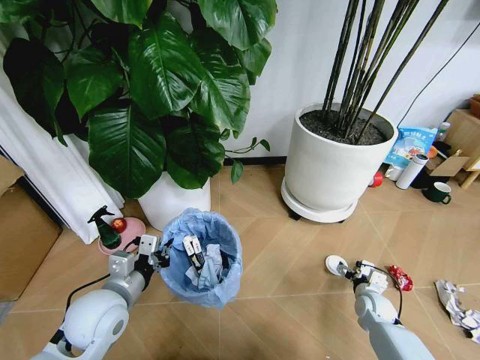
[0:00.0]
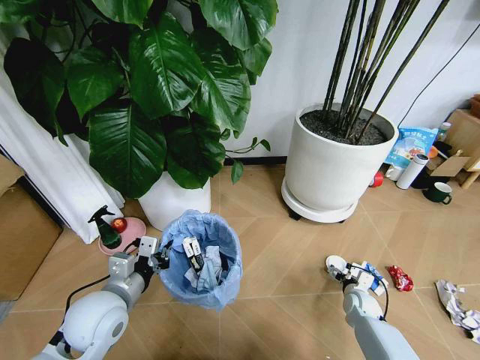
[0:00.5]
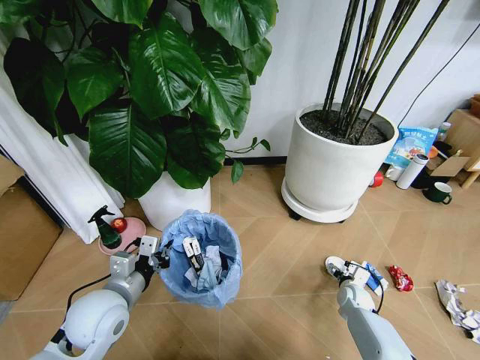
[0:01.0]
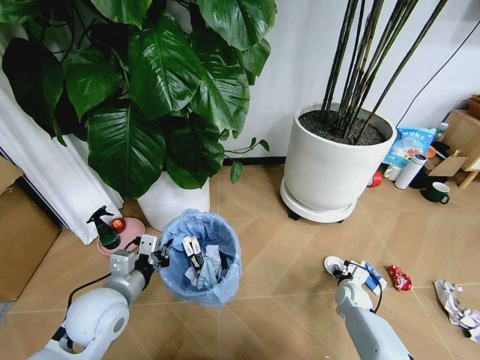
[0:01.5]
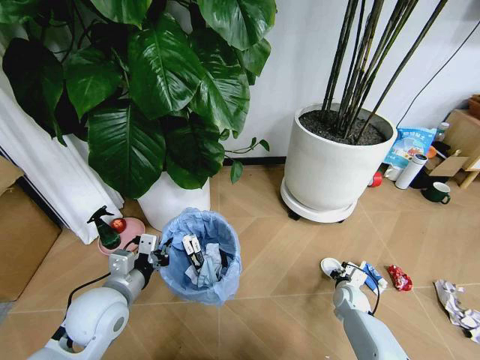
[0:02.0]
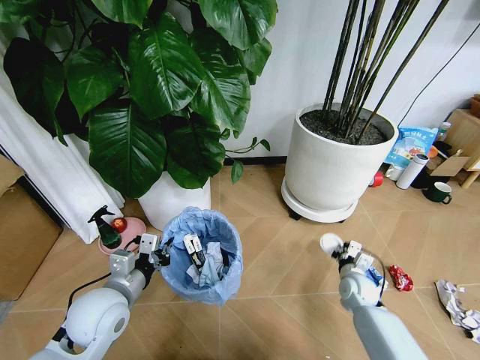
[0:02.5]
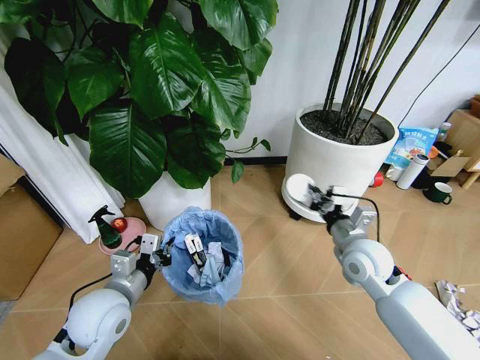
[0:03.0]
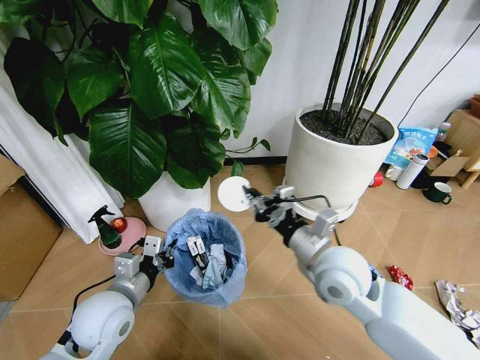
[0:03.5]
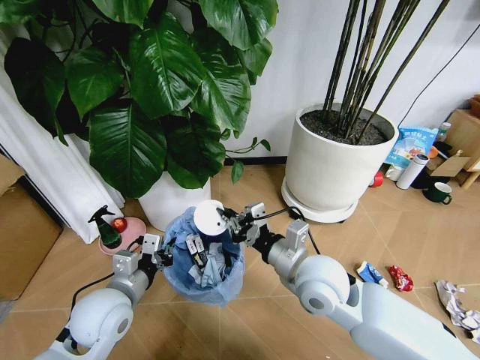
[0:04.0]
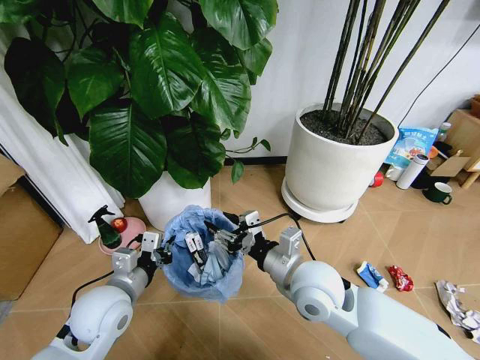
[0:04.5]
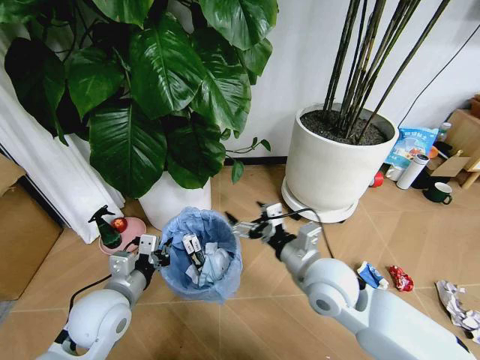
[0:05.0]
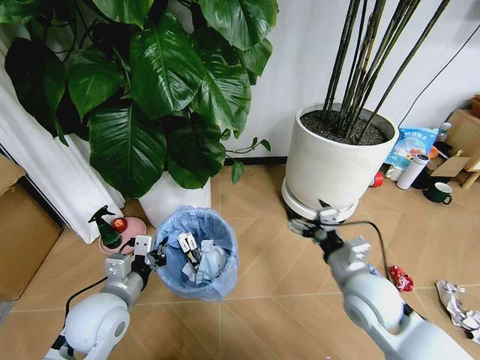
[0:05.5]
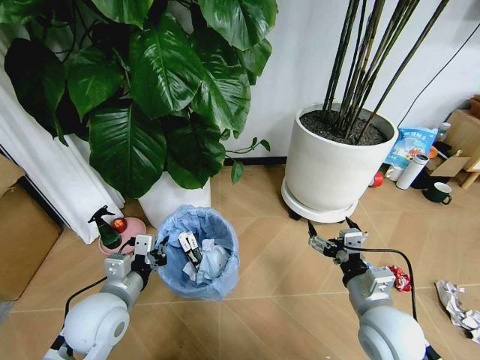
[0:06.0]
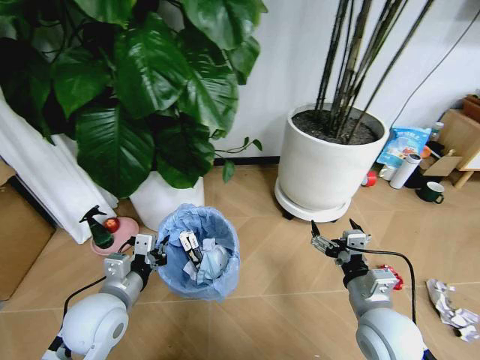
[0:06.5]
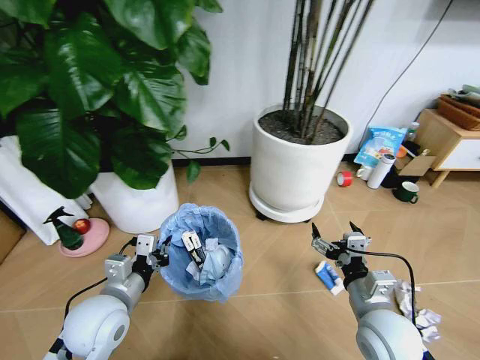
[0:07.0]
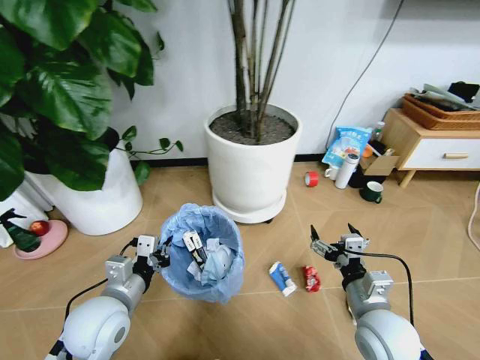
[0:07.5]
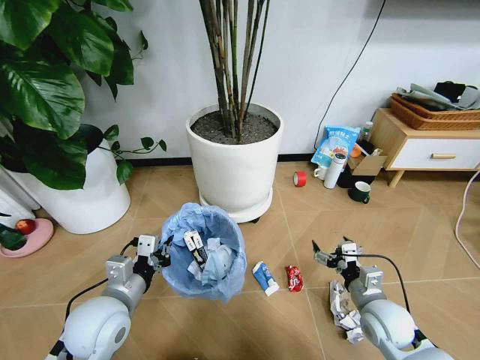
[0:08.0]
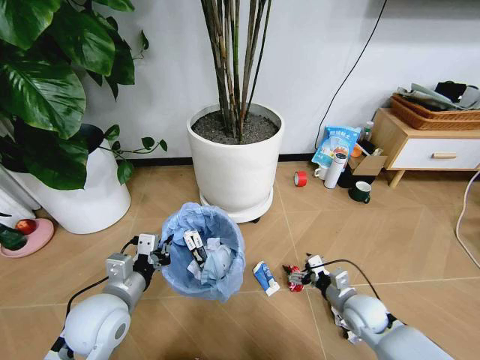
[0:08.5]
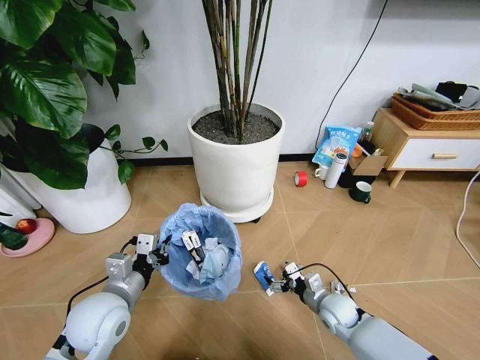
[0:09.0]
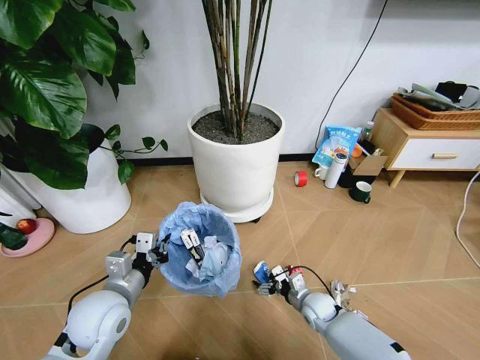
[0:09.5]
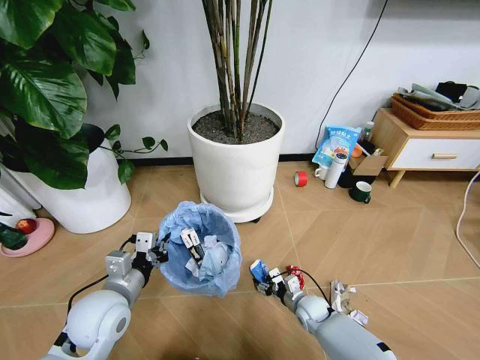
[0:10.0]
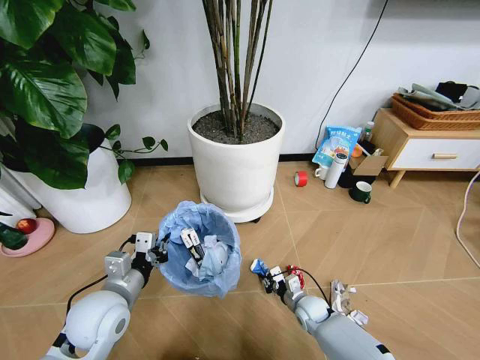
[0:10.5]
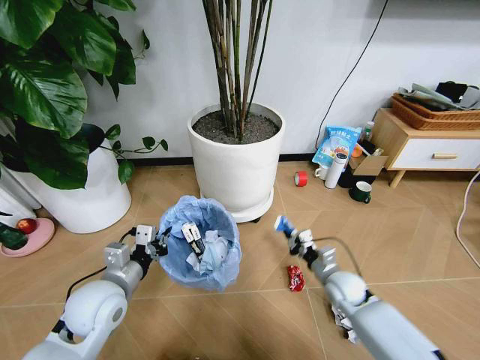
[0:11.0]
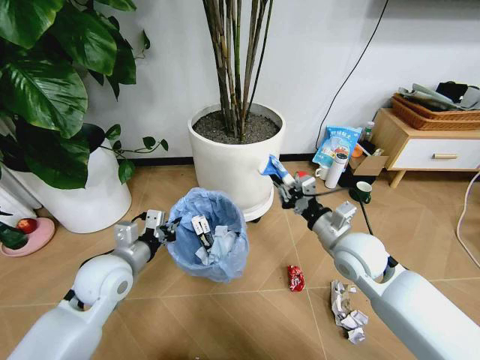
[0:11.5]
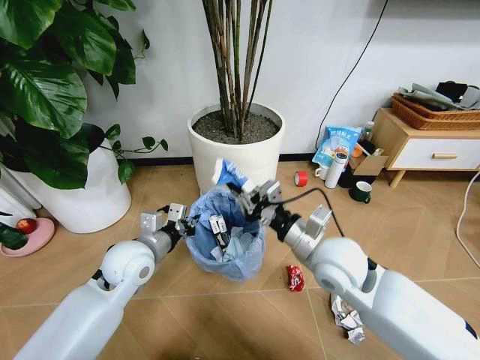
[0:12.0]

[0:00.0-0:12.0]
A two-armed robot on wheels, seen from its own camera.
Task of the whole recording: Pick up the trash bin and place the garbage on the floor into it.
0:00.0 to 0:02.0: The right gripper changes place by approximately 5 cm, and closes its fingers.
0:02.0 to 0:04.0: The right gripper is displaced upward and to the left by approximately 40 cm.
0:04.0 to 0:06.0: The right gripper moves to the right, backward and downward, some 15 cm, and opens up.
0:06.0 to 0:08.0: The right gripper shifts about 10 cm downward and to the right.
0:08.0 to 0:10.0: The right gripper is displaced downward, to the left and forward by roughly 20 cm.
0:10.0 to 0:12.0: The right gripper goes approximately 35 cm upward, and closes its fingers, while the left gripper shifts roughly 10 cm forward.

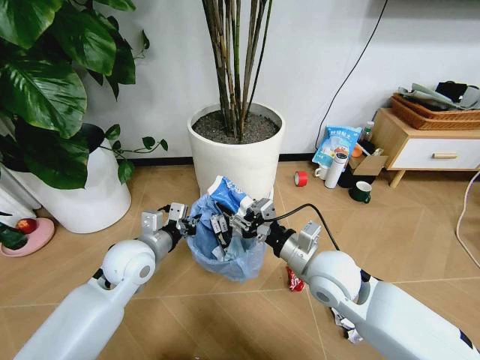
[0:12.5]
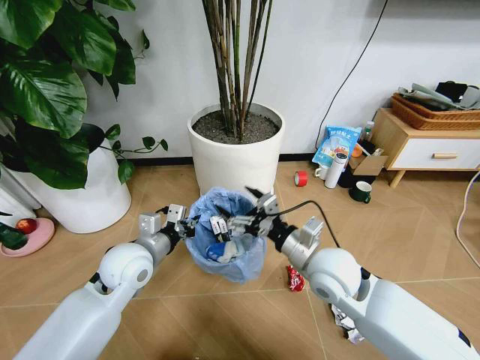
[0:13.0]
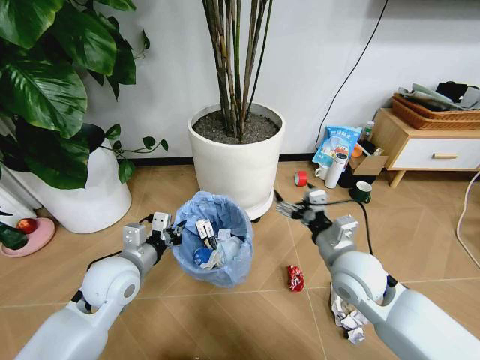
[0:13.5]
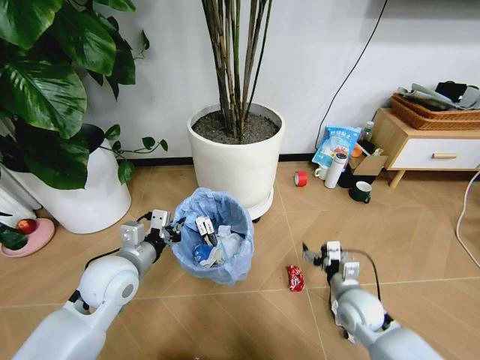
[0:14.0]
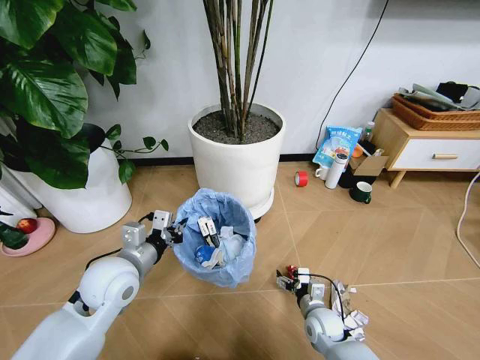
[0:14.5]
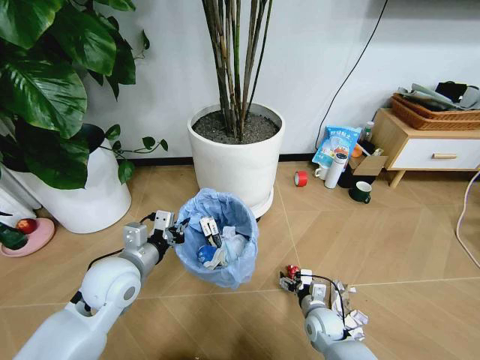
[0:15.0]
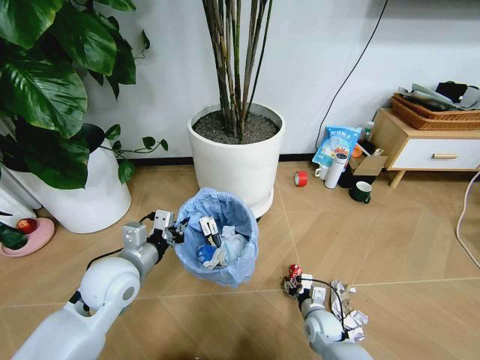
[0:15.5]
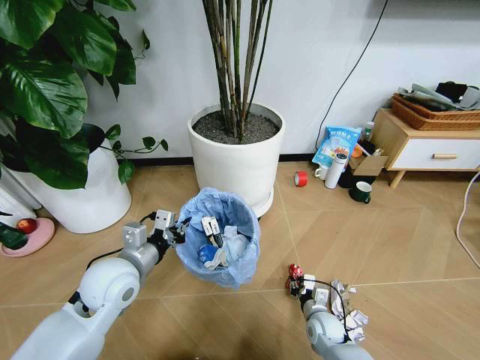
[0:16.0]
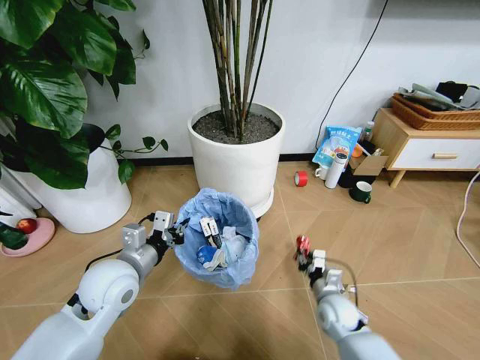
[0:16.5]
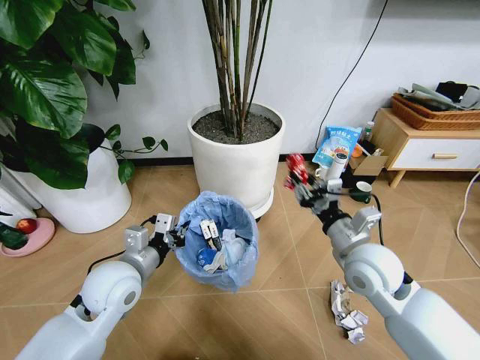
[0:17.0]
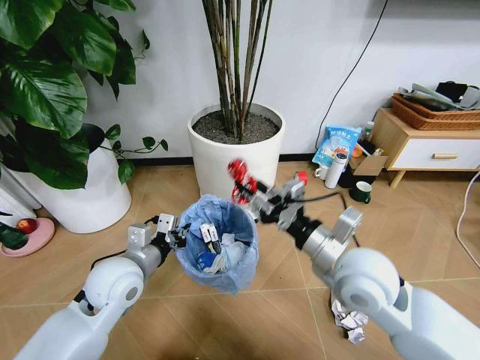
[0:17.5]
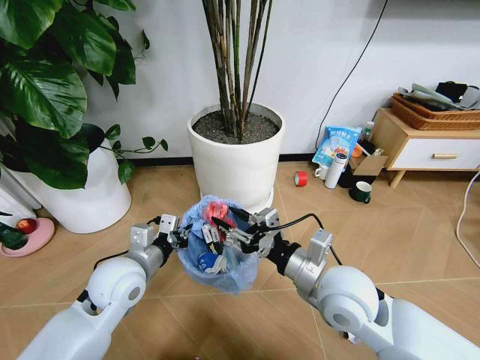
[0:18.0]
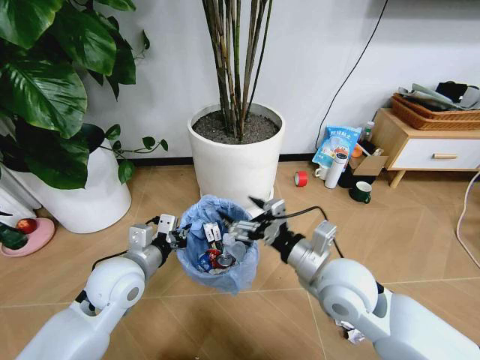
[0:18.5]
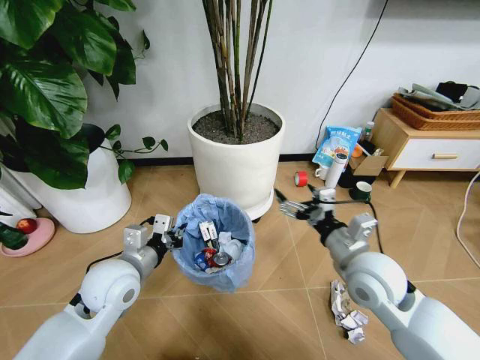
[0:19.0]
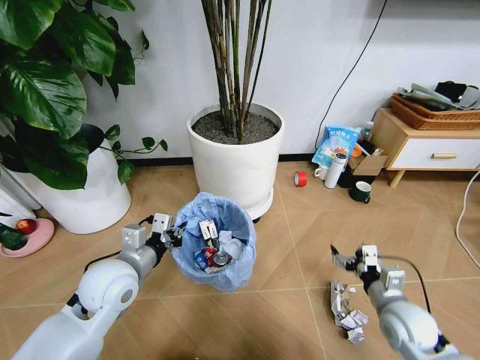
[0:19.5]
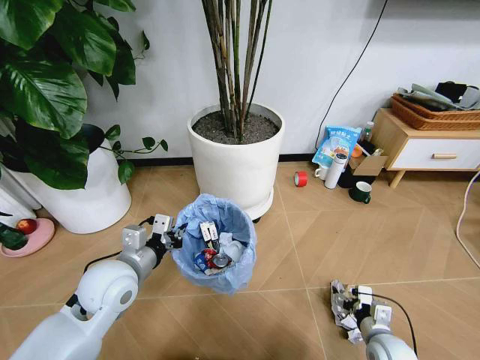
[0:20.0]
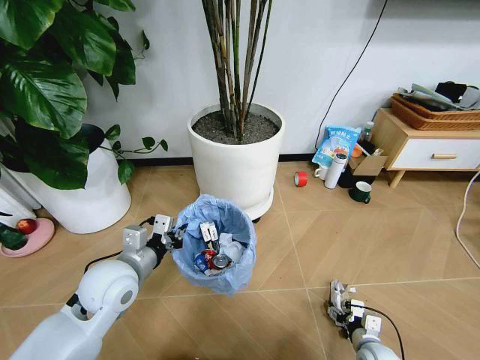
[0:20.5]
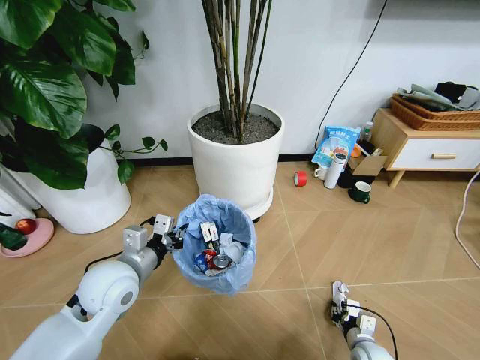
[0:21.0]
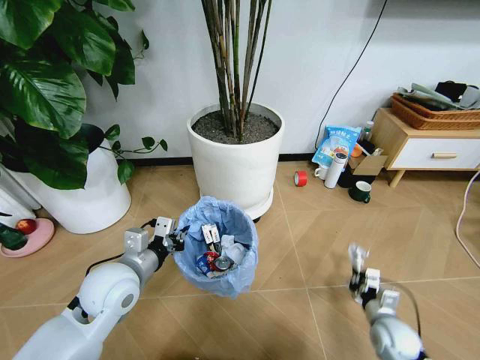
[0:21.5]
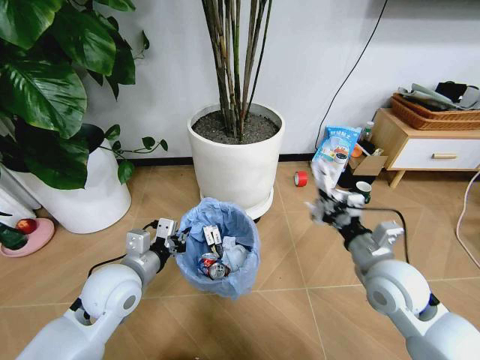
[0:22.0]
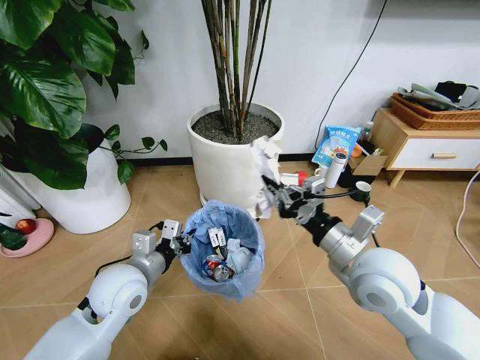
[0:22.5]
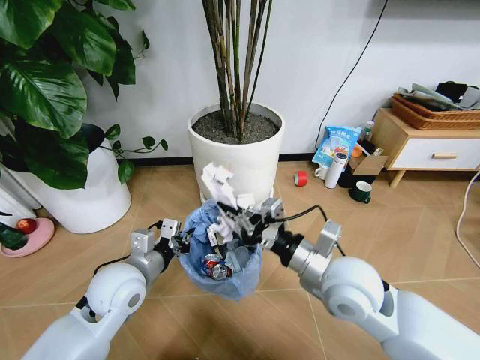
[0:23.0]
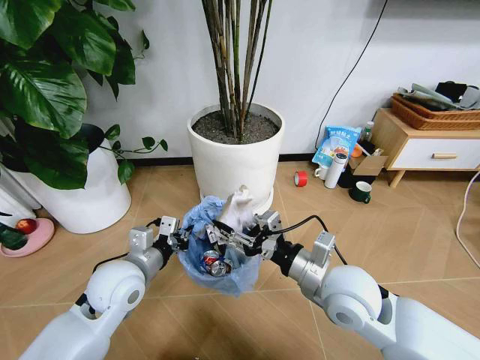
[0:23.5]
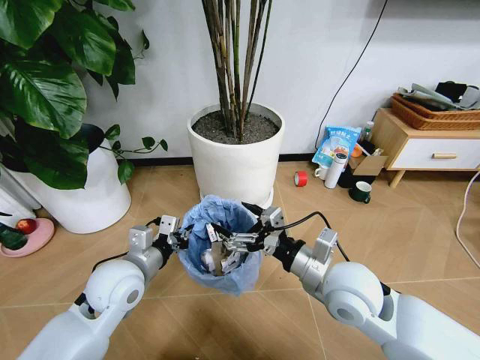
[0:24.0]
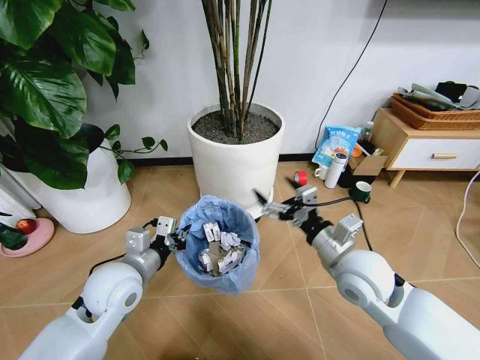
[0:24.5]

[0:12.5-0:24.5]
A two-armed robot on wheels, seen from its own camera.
Task of the whole recording: Pick up the trash bin and place the garbage on the floor into it.
0:12.5 to 0:14.5: The right gripper shifts about 25 cm downward, and opens its fingers.
0:14.5 to 0:16.5: The right gripper closes.
0:16.5 to 0:18.5: The right gripper is displaced upward by approximately 25 cm, and opens.
0:18.5 to 0:20.5: The right gripper shifts roughly 35 cm downward and to the right.
0:20.5 to 0:22.5: The right gripper moves upward, roughly 35 cm, and closes up.
0:22.5 to 0:24.5: The right gripper changes place by roughly 5 cm, and opens.

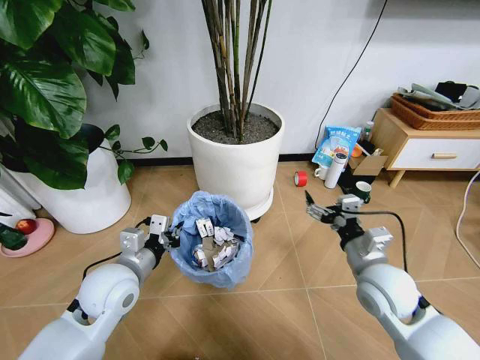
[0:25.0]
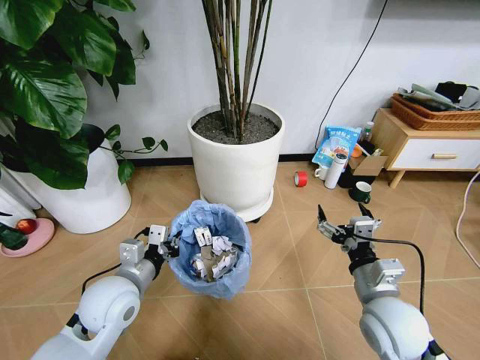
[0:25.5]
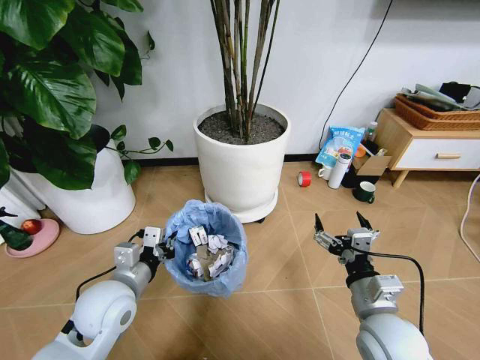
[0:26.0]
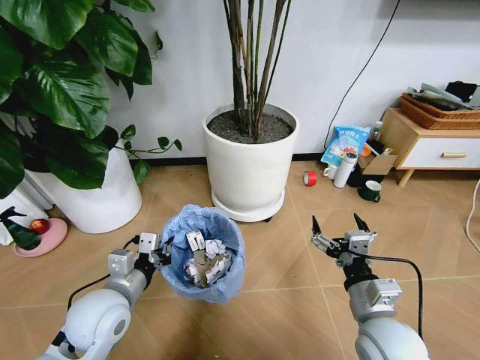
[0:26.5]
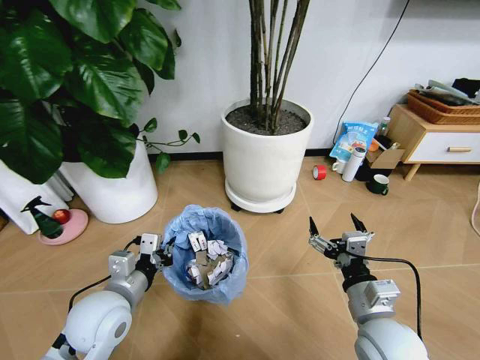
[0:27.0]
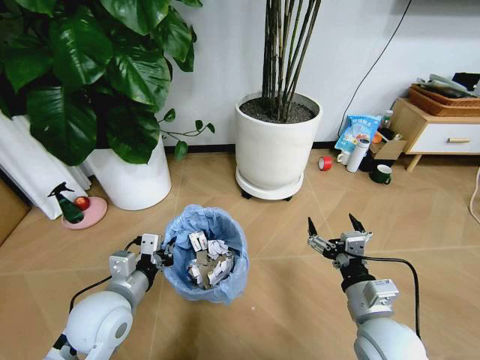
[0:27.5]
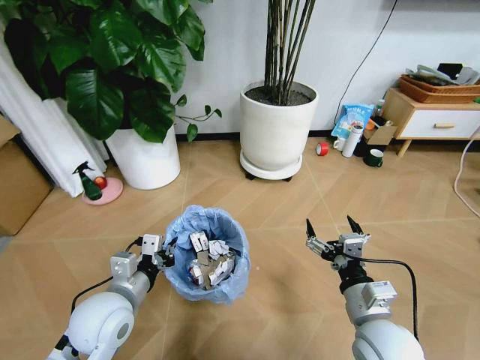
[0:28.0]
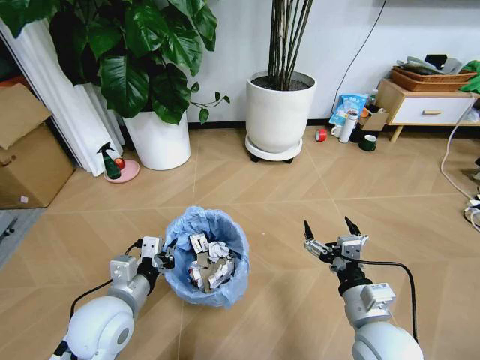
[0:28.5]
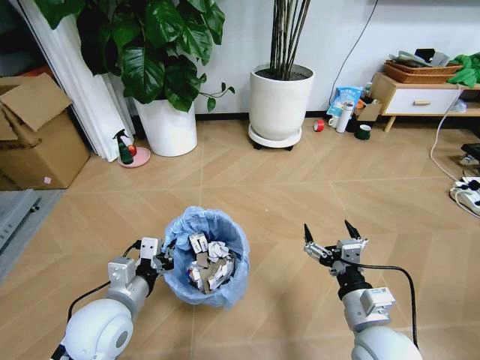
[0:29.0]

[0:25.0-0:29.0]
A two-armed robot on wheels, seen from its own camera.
Task of the whole recording: Pick up the trash bin and place the garbage on the floor into it.
0:25.0 to 0:27.0: The right gripper shifts roughly 10 cm backward.
